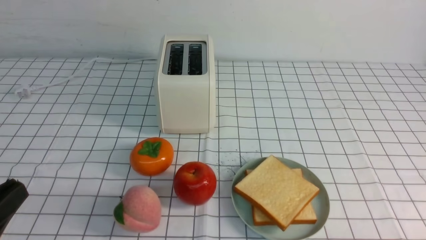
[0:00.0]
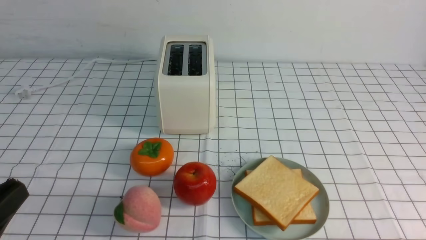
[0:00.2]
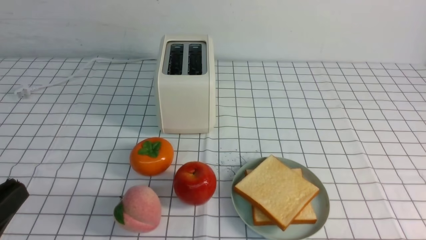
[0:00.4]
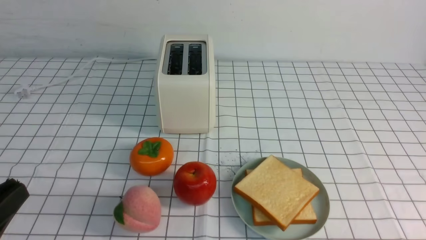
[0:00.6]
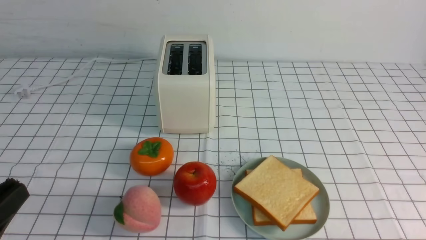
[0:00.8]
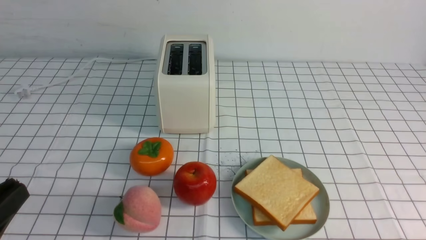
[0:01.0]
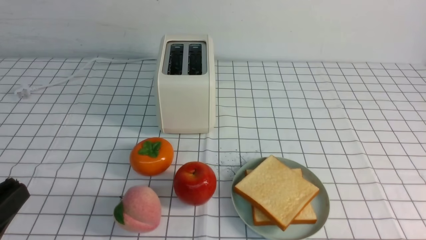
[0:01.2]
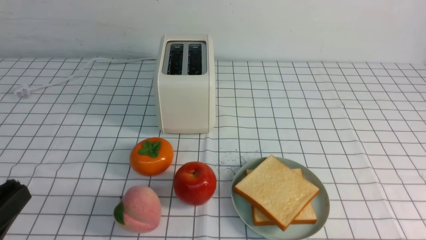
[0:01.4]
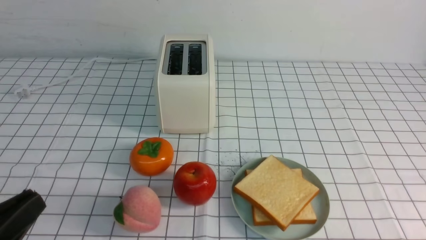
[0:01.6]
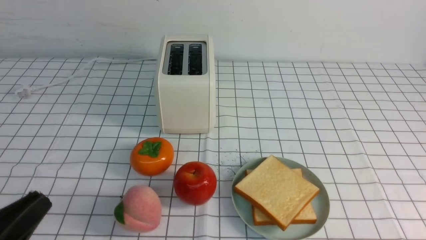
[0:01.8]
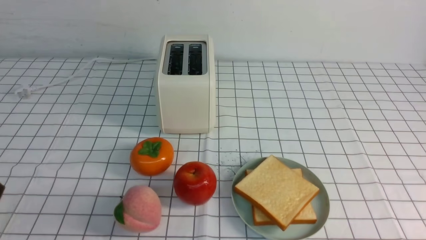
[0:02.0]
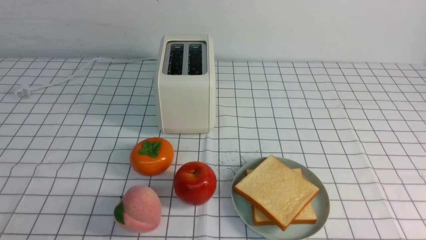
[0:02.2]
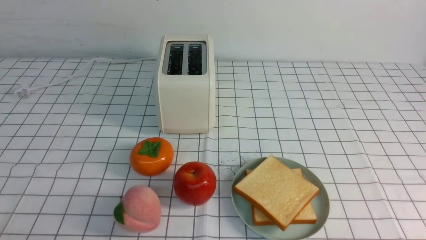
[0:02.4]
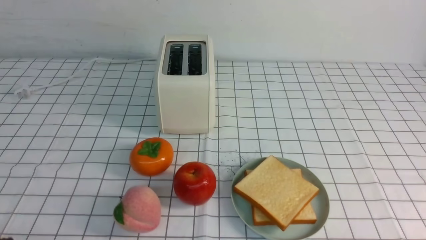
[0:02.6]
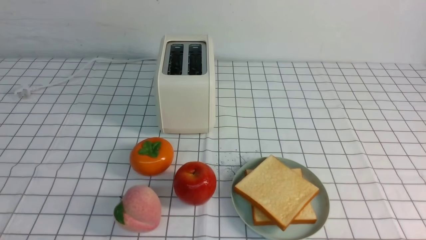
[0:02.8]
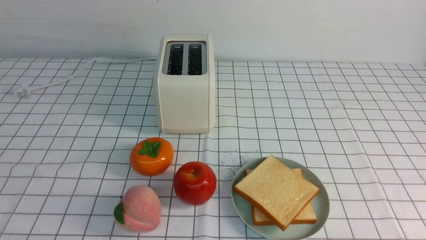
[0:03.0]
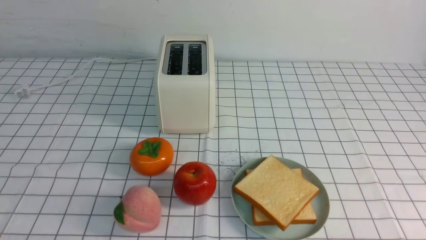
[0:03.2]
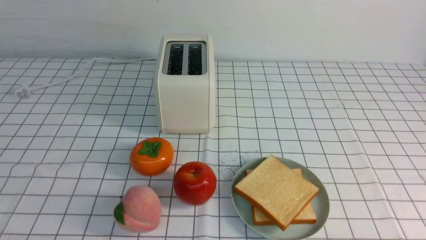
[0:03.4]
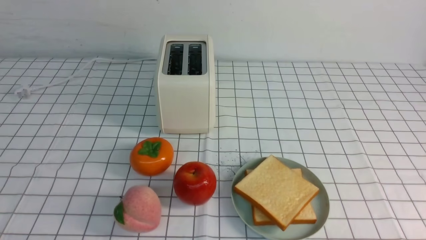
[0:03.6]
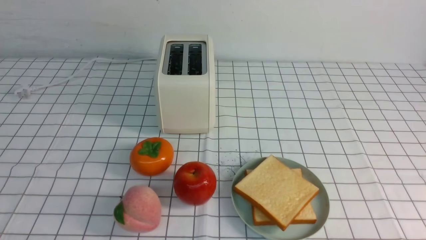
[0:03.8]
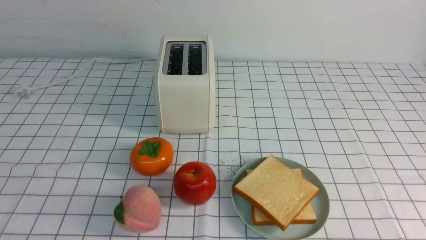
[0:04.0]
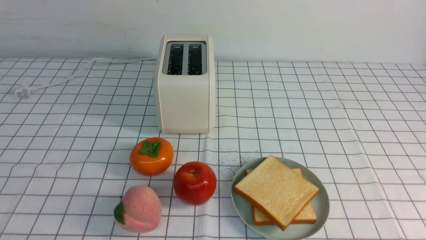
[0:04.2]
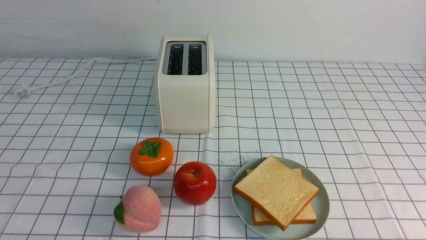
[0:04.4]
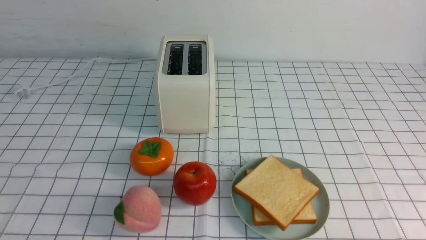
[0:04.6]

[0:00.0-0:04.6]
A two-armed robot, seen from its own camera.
Task of the whole recording: take toasted bread from bread machine on white checkered table place on plate.
0:00.0 to 0:01.6: The grippers make only small movements.
0:01.6 to 0:03.0: The left gripper travels downward by approximately 10 cm.
0:03.0 to 0:04.6: Both grippers stay about where they are.

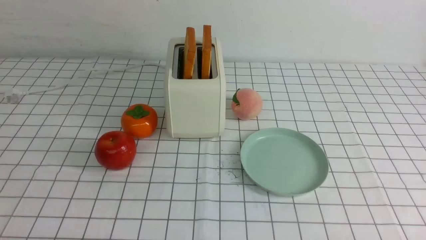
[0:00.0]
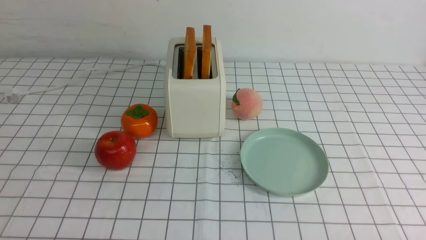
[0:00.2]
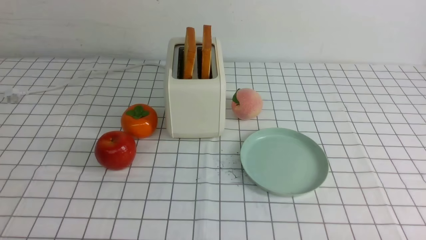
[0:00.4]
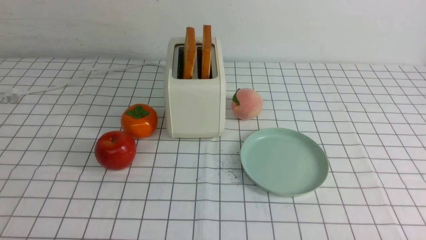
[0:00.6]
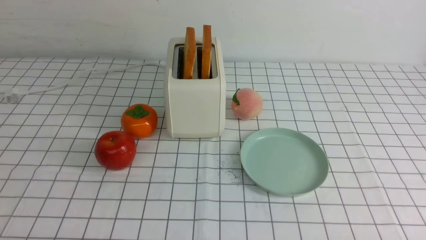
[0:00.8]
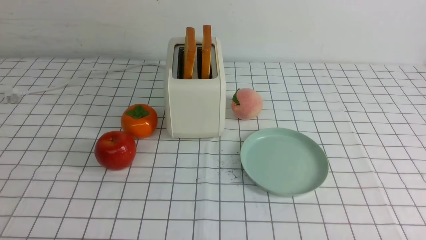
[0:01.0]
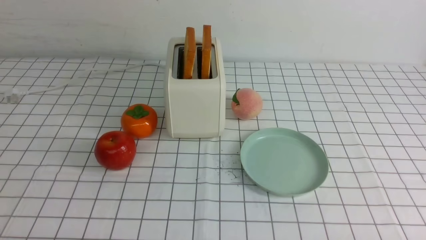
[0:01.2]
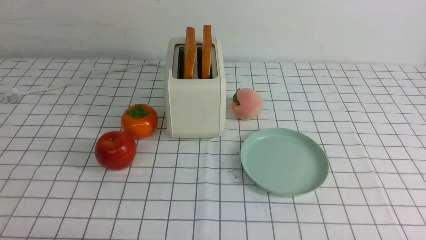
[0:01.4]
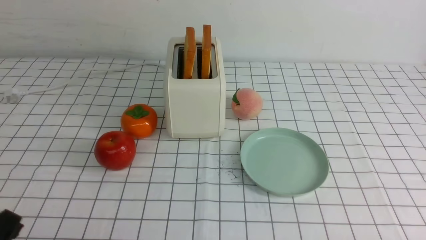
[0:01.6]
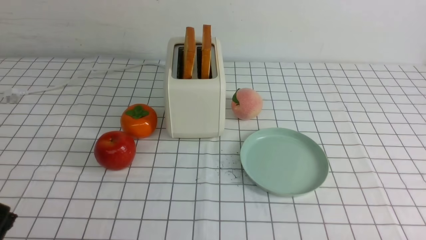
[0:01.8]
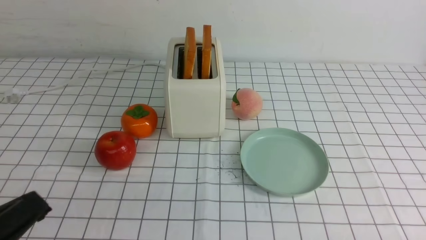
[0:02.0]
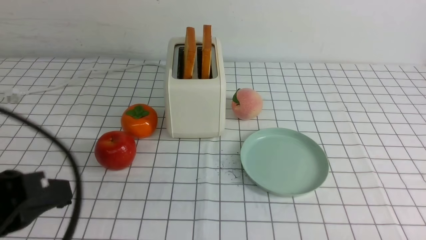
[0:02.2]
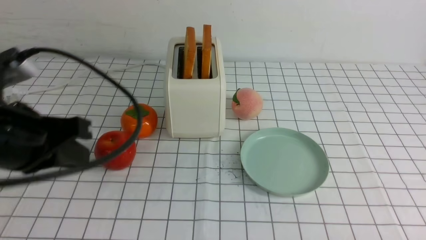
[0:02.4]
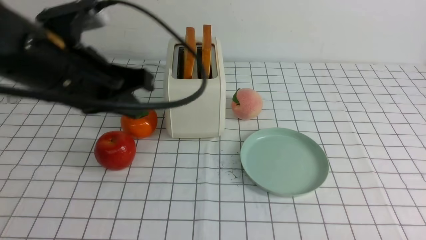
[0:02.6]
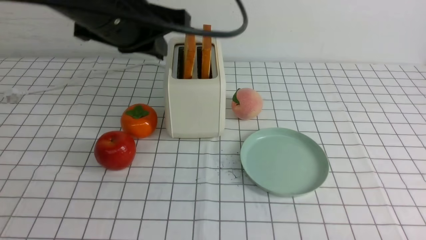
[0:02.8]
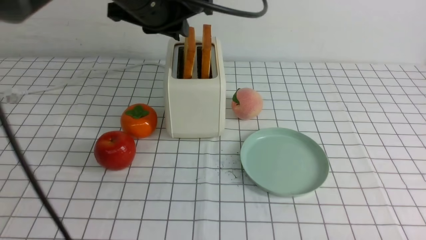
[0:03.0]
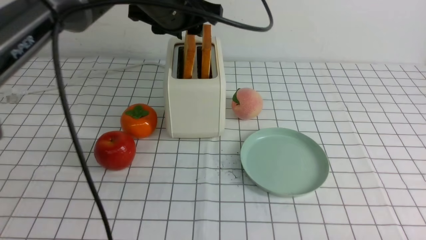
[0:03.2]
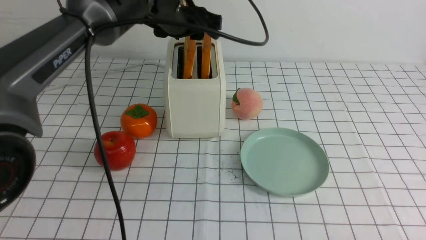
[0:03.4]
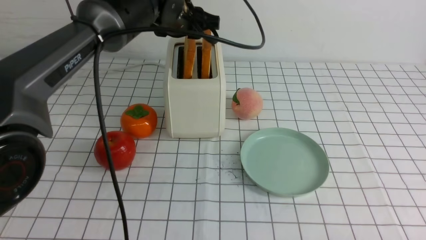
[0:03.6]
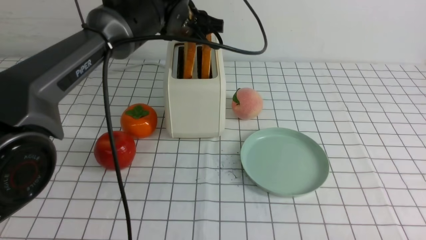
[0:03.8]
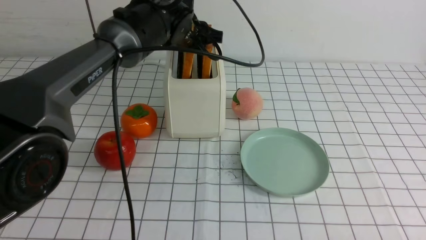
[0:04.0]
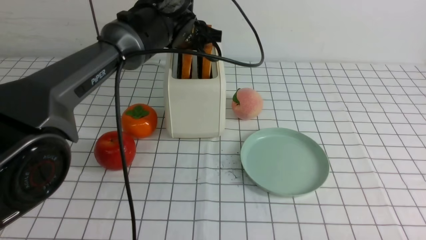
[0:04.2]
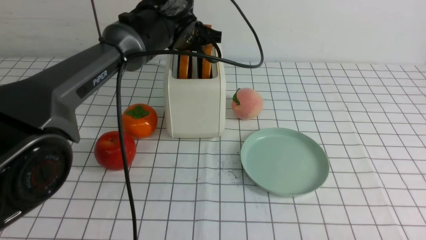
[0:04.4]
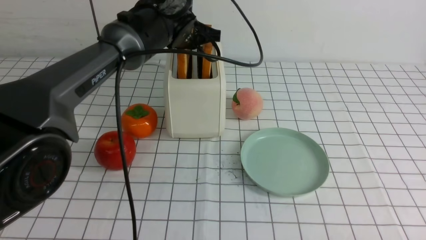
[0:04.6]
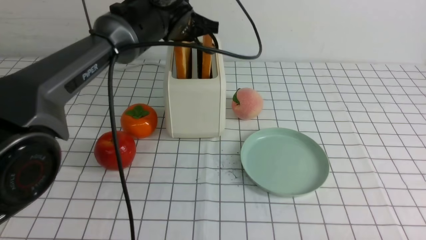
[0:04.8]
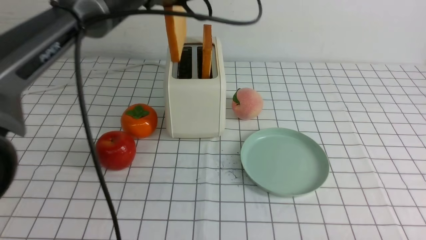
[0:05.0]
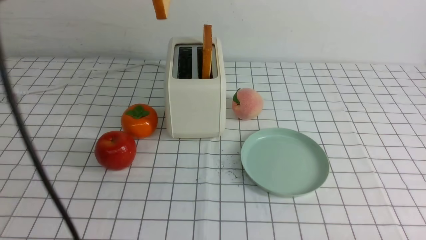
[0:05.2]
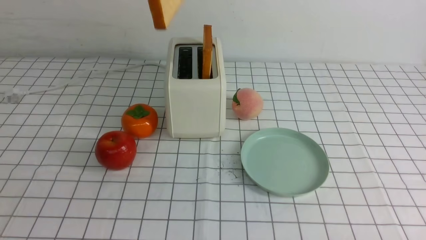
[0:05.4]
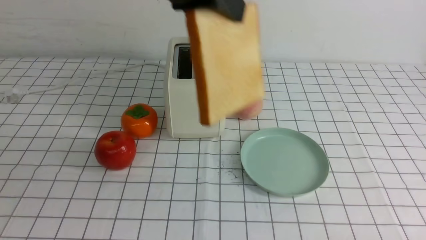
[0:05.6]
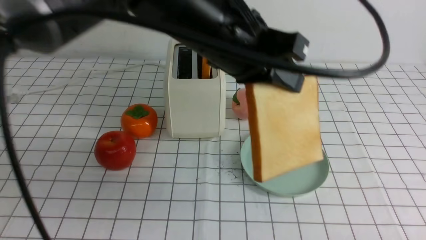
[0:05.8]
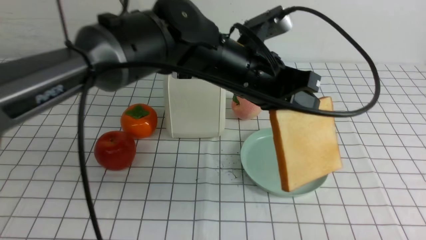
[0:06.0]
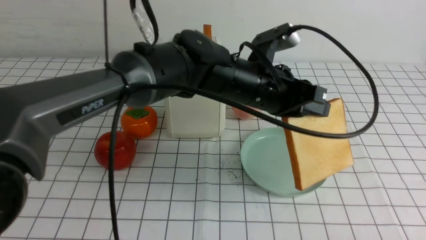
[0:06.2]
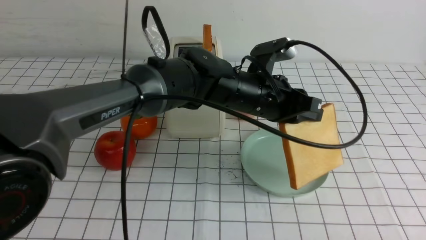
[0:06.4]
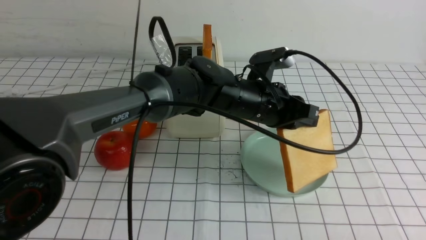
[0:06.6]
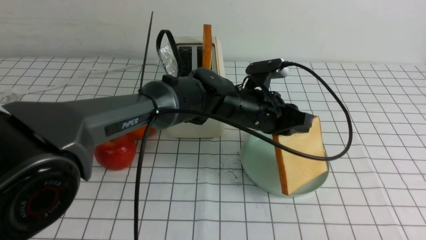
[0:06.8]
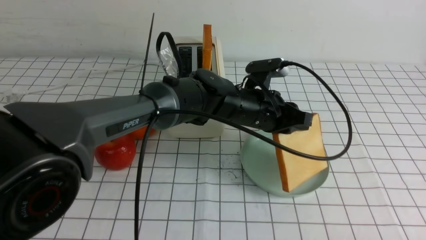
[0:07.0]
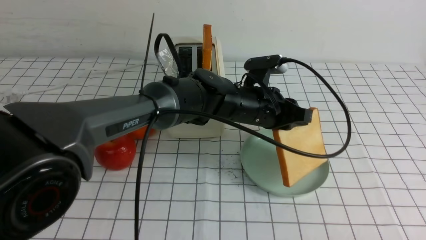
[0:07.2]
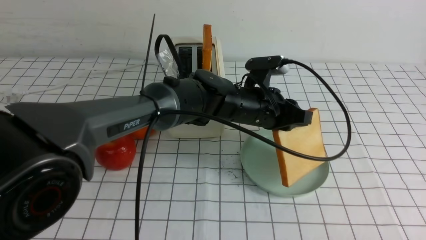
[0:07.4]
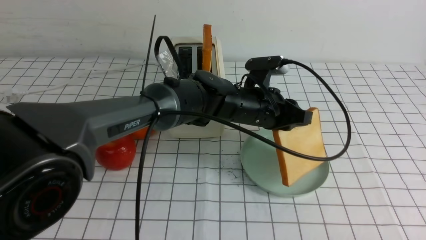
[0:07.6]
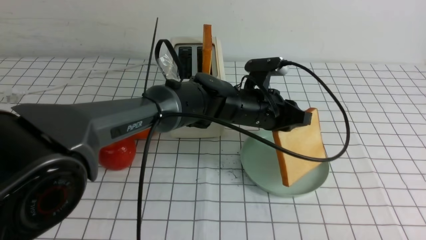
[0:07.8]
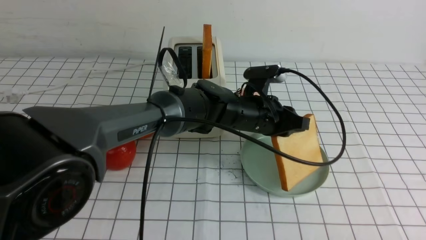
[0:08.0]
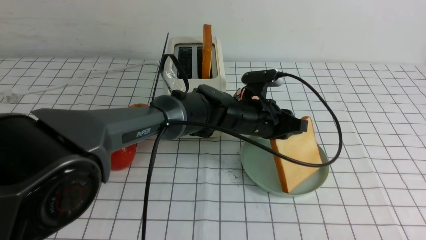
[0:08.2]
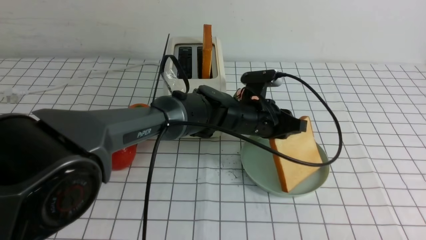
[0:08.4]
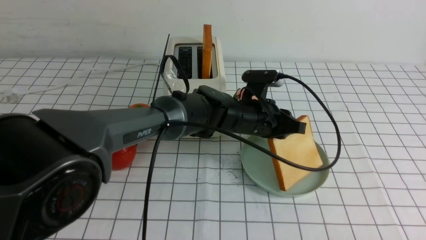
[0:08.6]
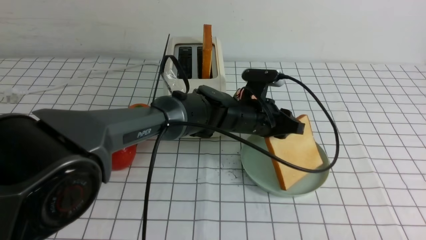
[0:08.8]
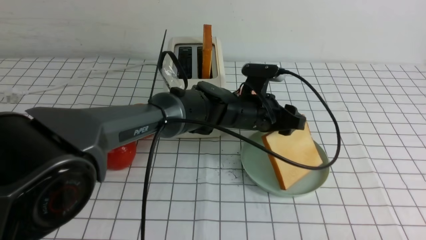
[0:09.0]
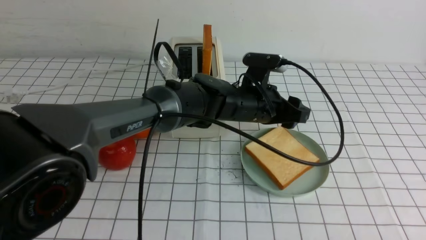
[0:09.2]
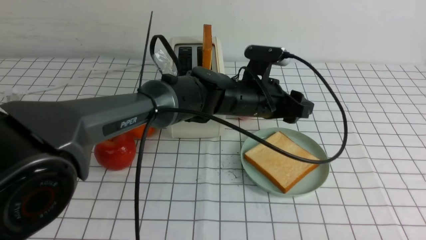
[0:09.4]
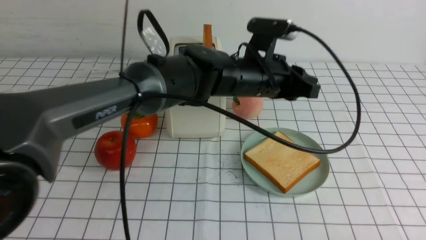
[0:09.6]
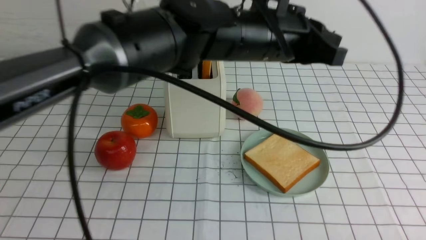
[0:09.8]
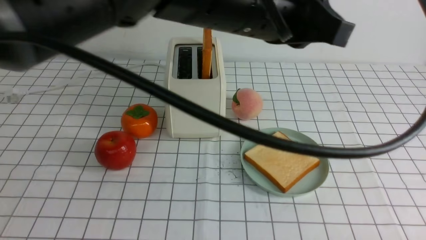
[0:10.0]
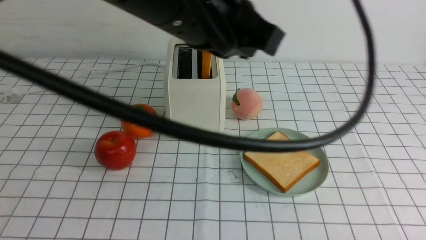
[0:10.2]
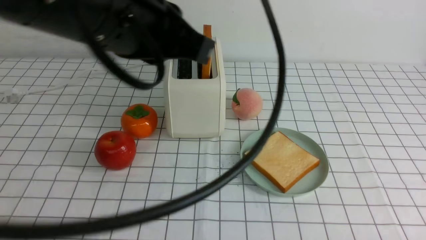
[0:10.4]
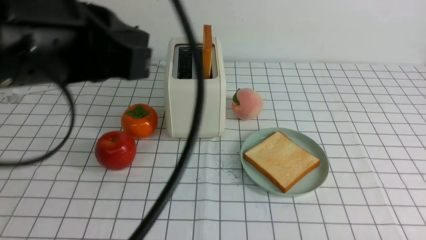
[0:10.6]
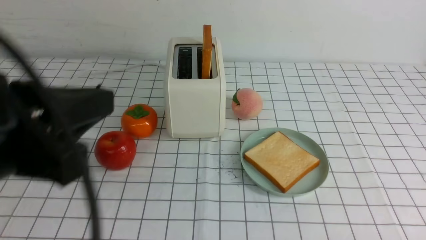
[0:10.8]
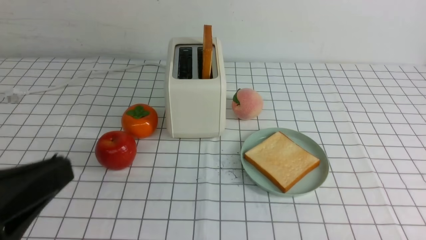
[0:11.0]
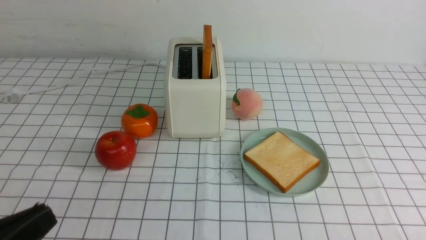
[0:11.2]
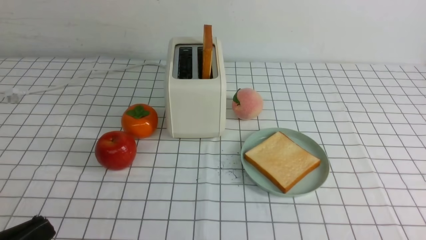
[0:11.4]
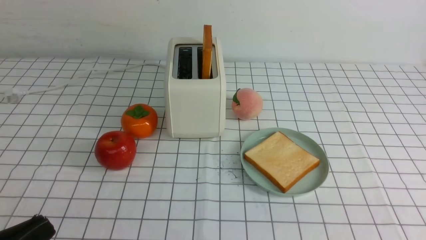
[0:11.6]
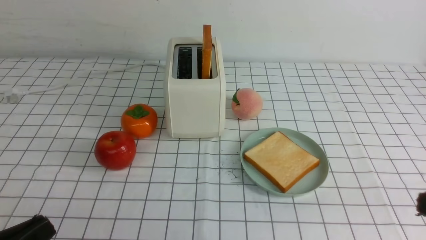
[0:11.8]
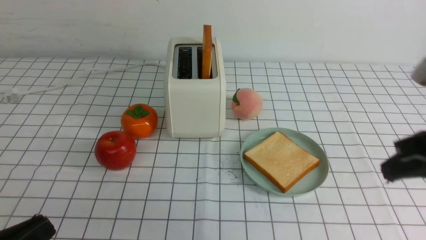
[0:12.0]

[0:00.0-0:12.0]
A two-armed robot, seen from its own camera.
Task of the whole recording: take toasted bread from bread machine on white checkered table place on plate.
Step, 0:00.0 to 0:04.8: use the left arm to take out a slice of bread.
Step, 0:05.0 to 0:09.2: use the left arm to put a slice of bread into the empty plate.
0:01.6 to 0:03.0: The left gripper travels forward, upward and to the right by some 40 cm, and closes its fingers.
0:03.0 to 0:04.4: The left gripper heads forward and downward, covering about 15 cm, and opens up.
0:04.4 to 0:06.0: The left gripper moves backward and to the right, roughly 20 cm, and closes.
0:06.0 to 0:07.6: The left gripper heads downward and forward, covering some 15 cm.
0:07.6 to 0:09.0: The left gripper opens up.
0:09.0 to 0:10.4: The left gripper goes about 35 cm upward, backward and to the left, and closes.
0:10.4 to 0:12.0: The left gripper shifts approximately 30 cm downward, backward and to the left. Meanwhile the right gripper travels upward and forward by some 20 cm, and closes.
